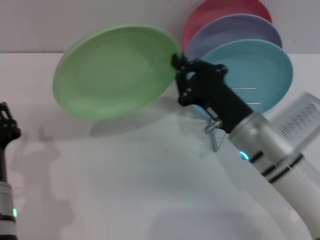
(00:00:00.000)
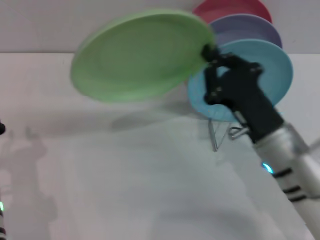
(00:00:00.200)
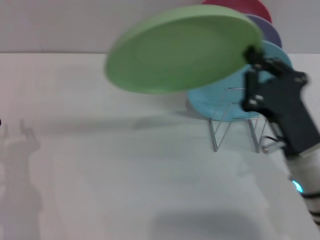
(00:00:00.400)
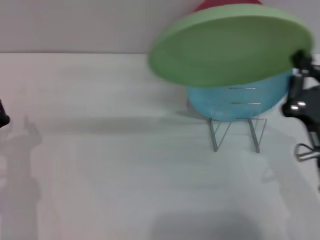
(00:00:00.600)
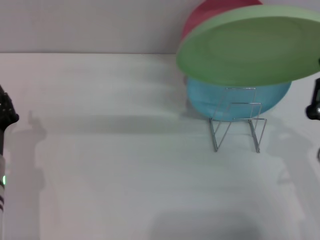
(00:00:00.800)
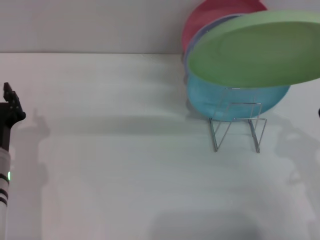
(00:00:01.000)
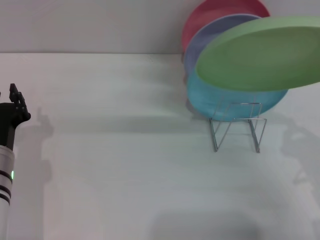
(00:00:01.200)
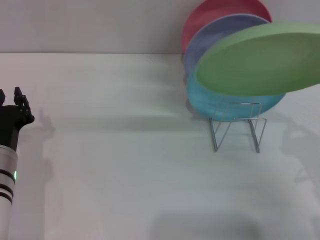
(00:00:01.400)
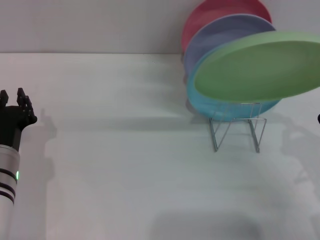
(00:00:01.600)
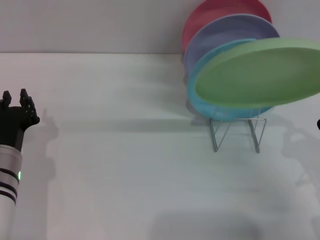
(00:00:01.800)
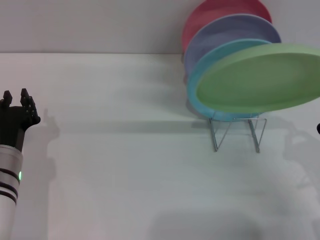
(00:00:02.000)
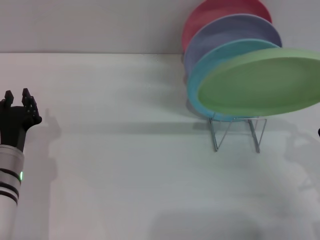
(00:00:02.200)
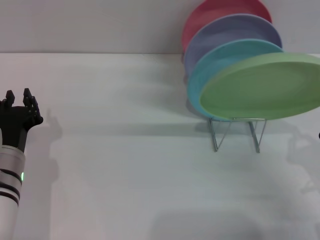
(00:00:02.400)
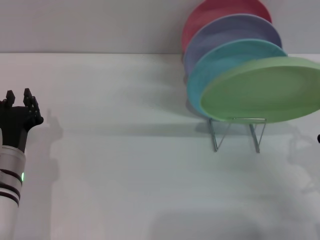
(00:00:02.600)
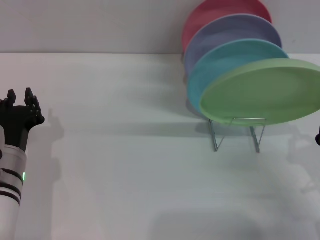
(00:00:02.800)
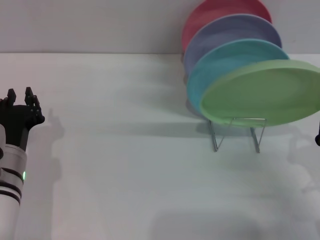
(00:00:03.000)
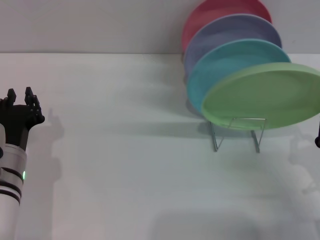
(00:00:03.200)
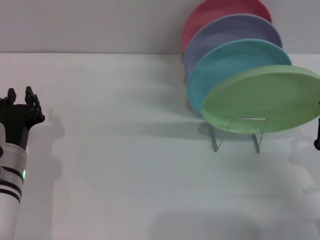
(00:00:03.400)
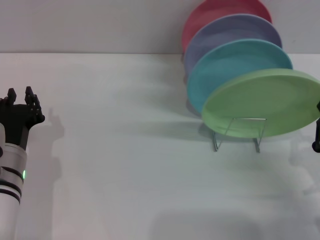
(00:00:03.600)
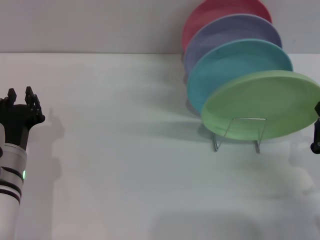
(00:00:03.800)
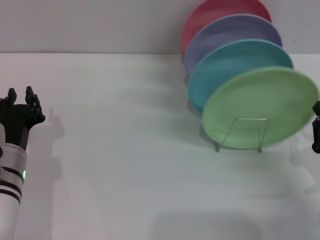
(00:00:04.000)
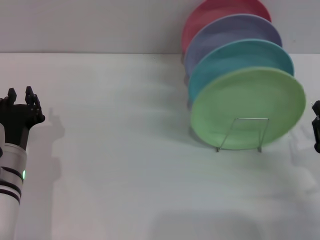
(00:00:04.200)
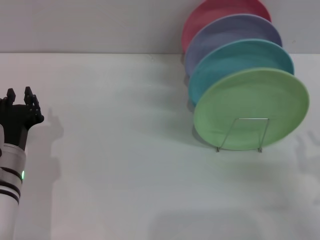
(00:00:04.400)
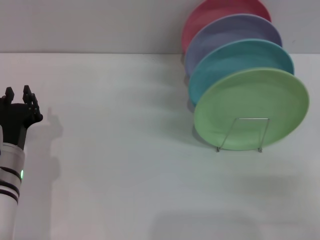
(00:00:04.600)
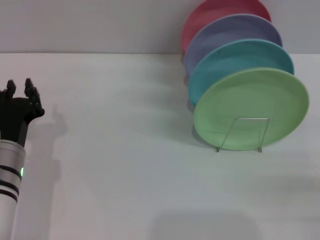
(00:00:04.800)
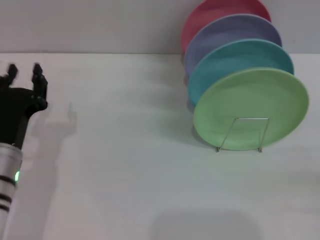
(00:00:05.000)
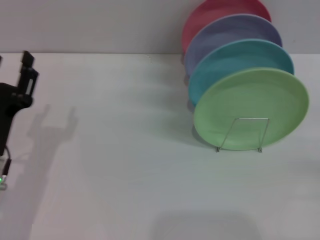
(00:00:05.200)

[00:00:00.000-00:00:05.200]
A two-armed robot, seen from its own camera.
Task of the whole recording: Grip the plate with one hand, pass it to the other, then set it on the shelf.
Step, 00:00:00.000 to 00:00:04.000: Place the plate on the shelf with the right gripper.
00:00:00.000 to 00:00:01.800: The right gripper heads to the right and backward, covering roughly 15 cm. Meanwhile the left gripper heads forward, covering some 10 cm.
00:00:01.800 to 00:00:03.400: The grippers move only a little.
00:00:03.400 to 00:00:05.200: The right gripper moves to the right, some 10 cm, and opens its fingers.
